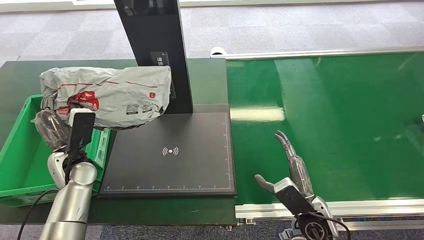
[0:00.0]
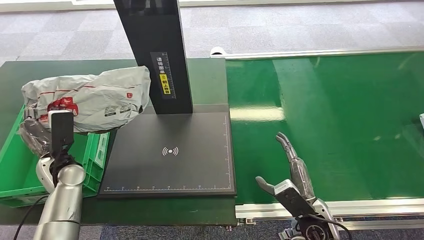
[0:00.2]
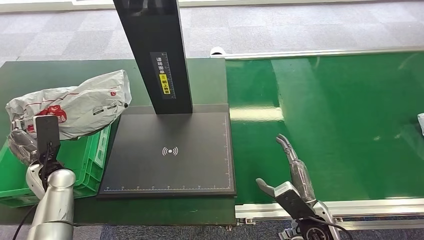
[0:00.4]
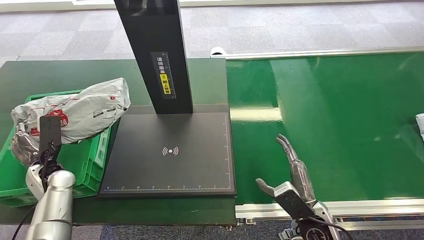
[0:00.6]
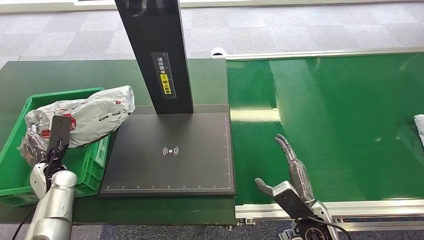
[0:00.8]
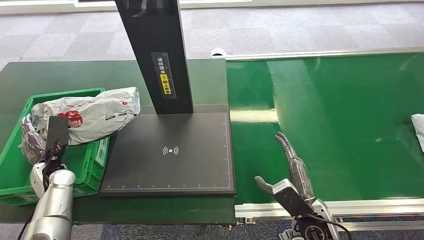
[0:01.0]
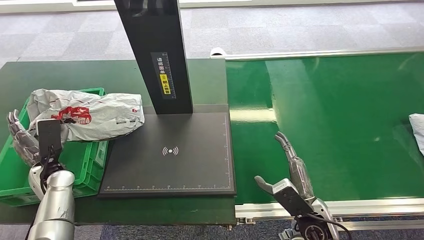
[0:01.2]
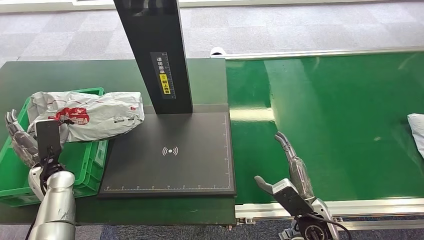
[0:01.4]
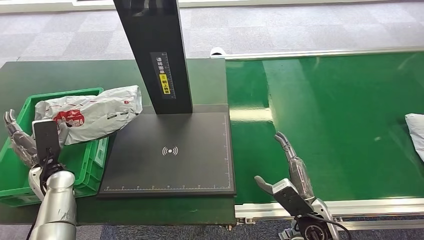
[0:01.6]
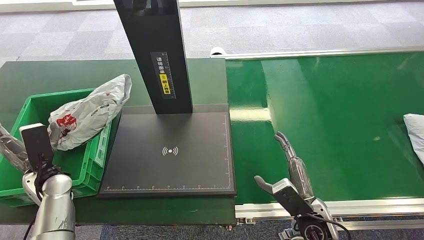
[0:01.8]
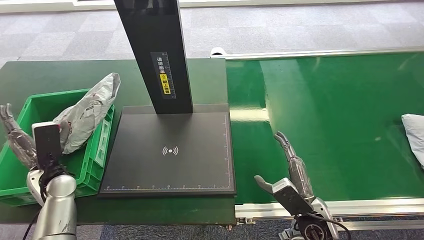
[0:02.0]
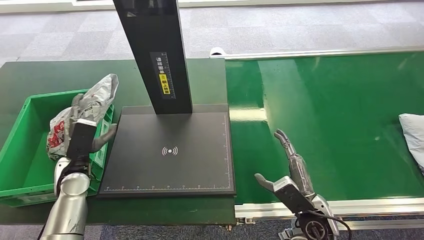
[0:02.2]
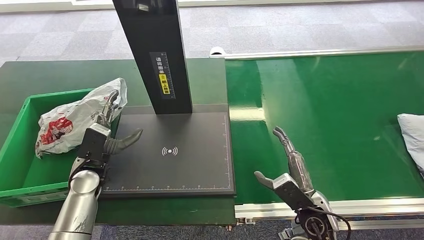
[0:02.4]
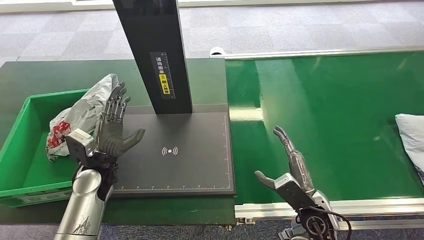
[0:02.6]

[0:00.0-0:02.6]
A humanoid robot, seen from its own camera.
Task of the whole recording: Weigh the package on the weighing device and place it in the left basket.
Step, 0:00.0 to 0:02.6: Place the package into the parcel locker.
0:00.0 to 0:01.2: The left hand travels to the left by roughly 5 cm.
0:01.2 to 0:02.6: The left hand is displaced to the right by about 15 cm.
